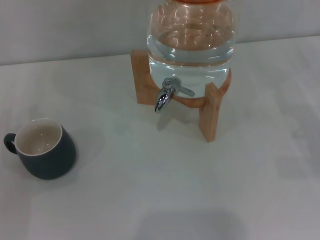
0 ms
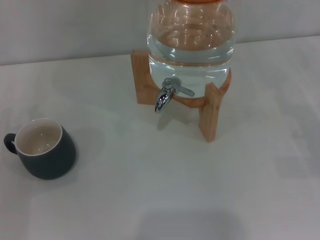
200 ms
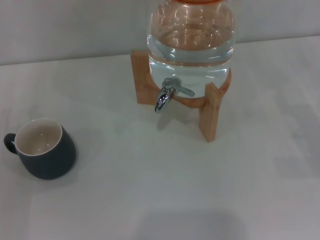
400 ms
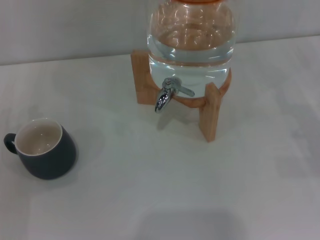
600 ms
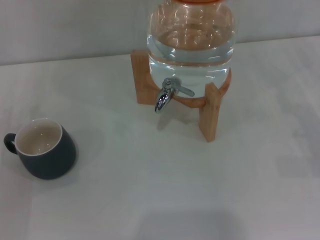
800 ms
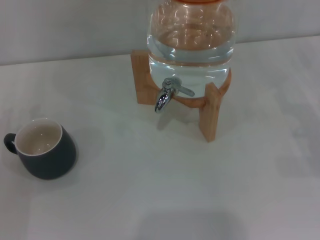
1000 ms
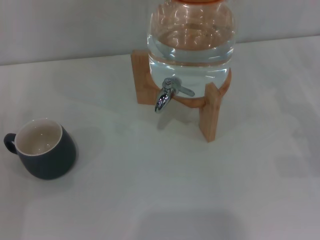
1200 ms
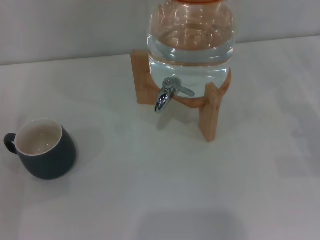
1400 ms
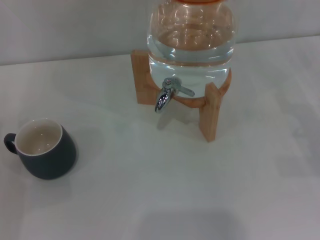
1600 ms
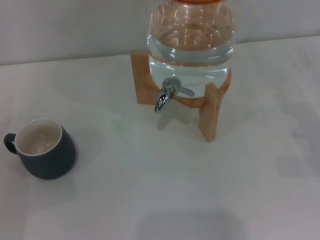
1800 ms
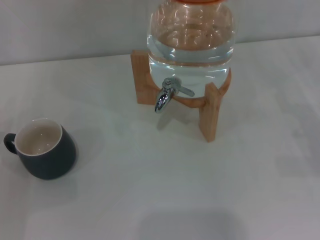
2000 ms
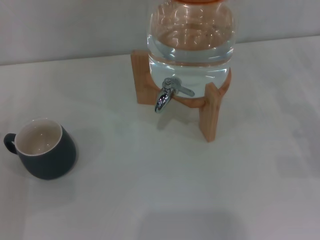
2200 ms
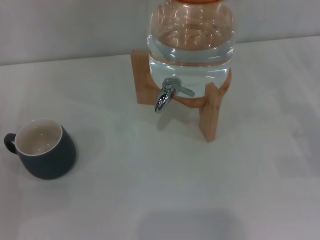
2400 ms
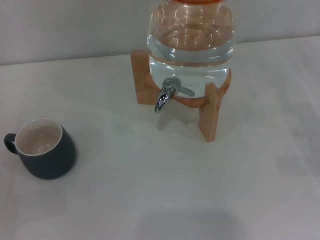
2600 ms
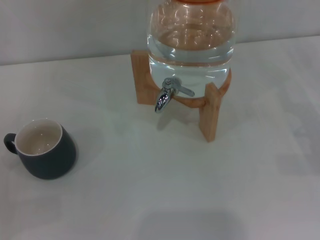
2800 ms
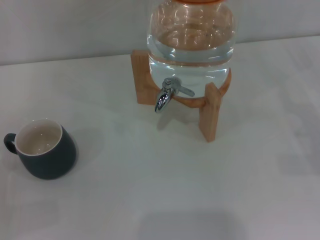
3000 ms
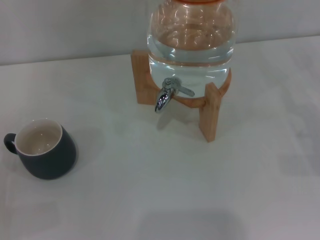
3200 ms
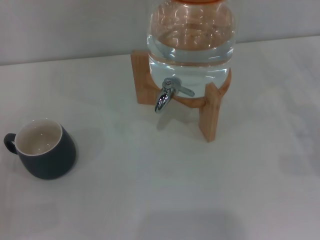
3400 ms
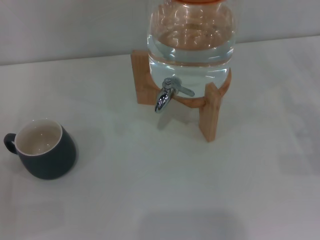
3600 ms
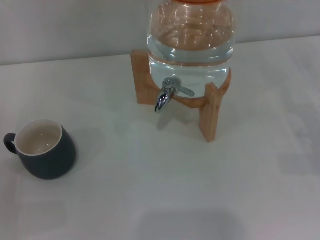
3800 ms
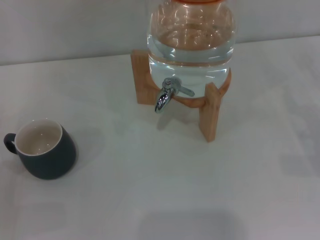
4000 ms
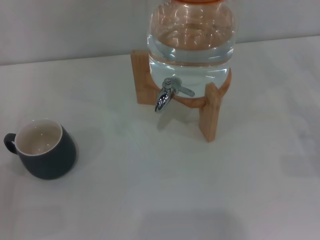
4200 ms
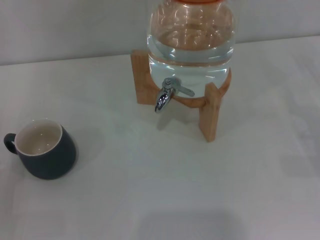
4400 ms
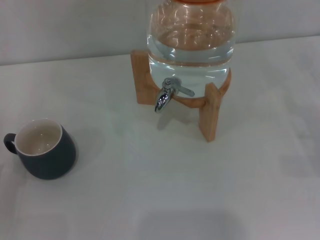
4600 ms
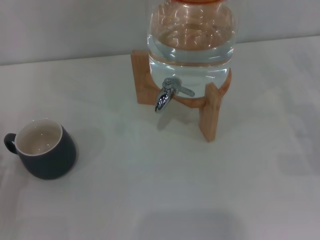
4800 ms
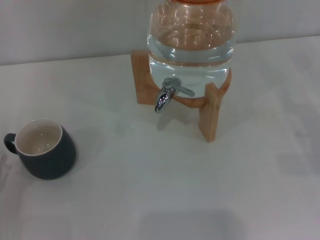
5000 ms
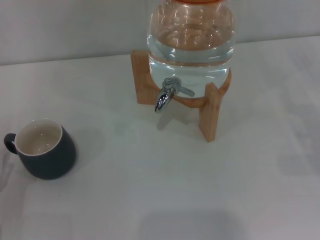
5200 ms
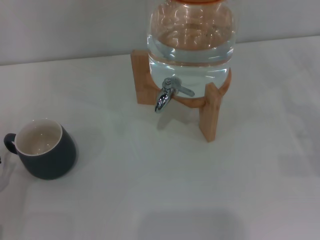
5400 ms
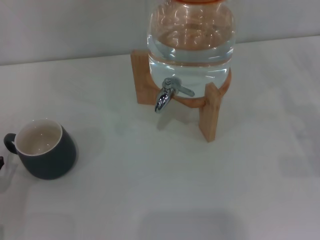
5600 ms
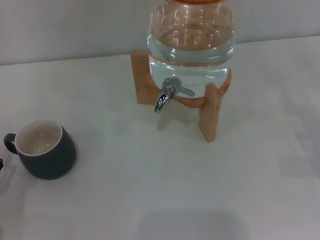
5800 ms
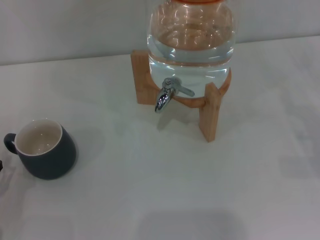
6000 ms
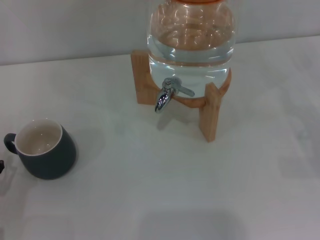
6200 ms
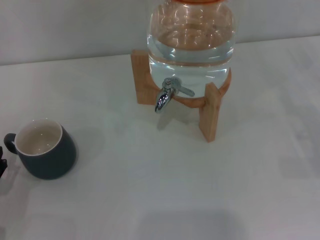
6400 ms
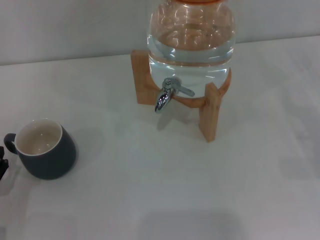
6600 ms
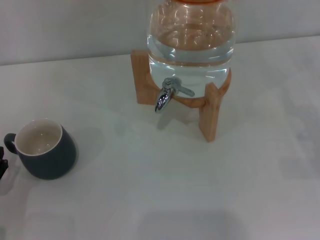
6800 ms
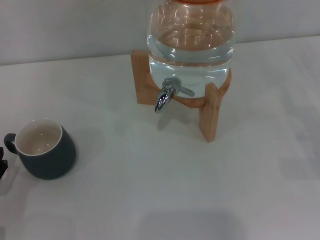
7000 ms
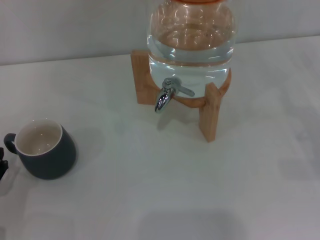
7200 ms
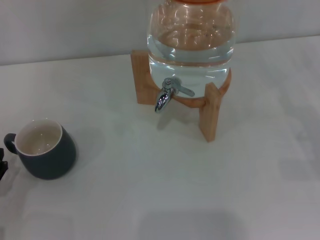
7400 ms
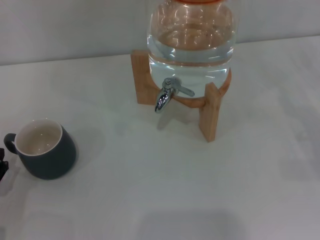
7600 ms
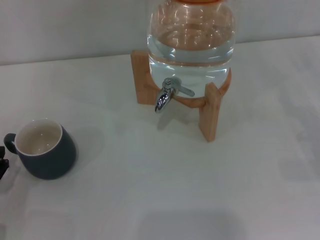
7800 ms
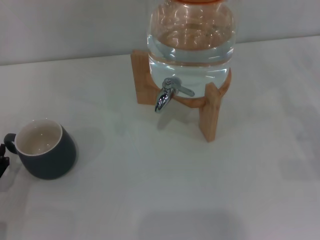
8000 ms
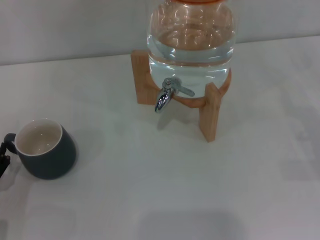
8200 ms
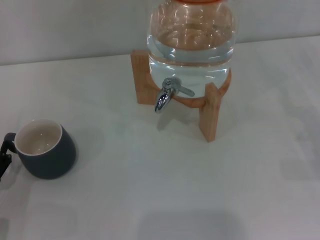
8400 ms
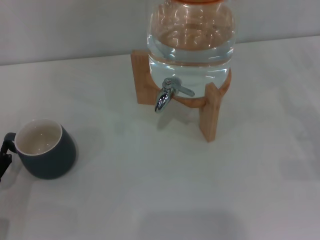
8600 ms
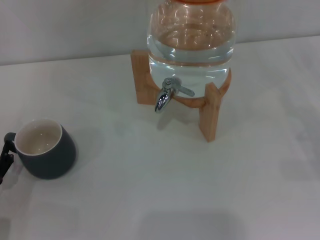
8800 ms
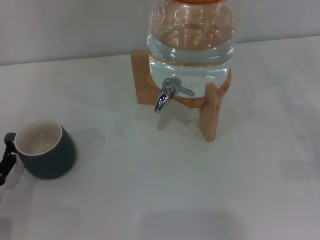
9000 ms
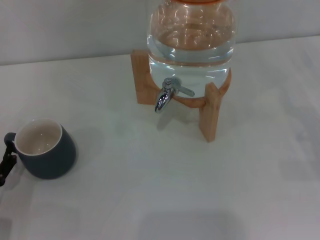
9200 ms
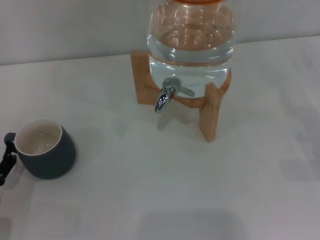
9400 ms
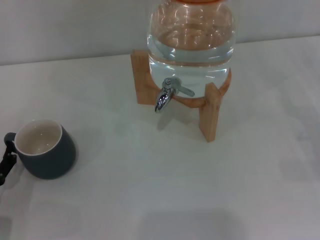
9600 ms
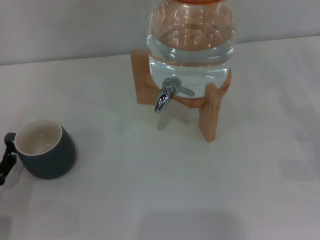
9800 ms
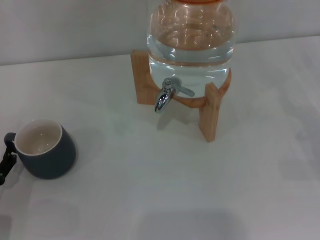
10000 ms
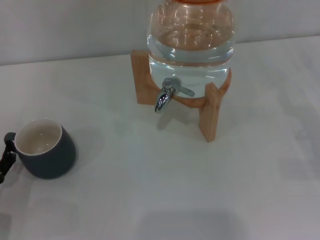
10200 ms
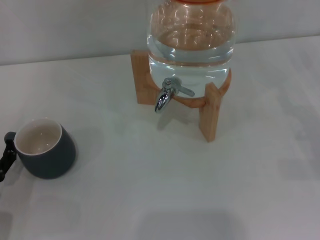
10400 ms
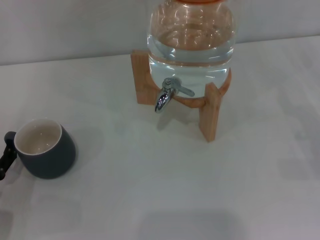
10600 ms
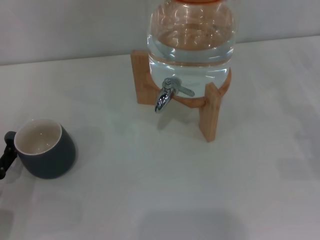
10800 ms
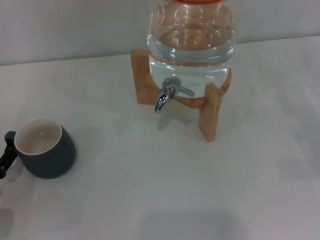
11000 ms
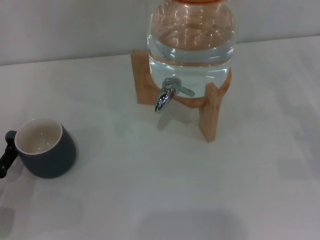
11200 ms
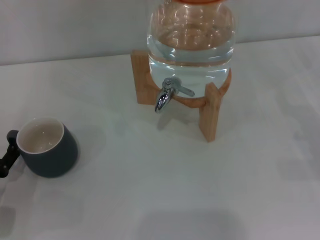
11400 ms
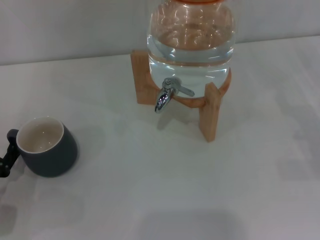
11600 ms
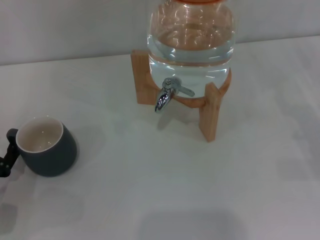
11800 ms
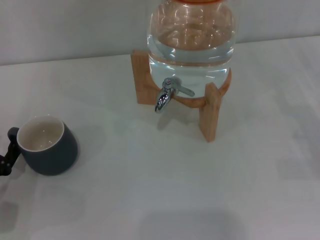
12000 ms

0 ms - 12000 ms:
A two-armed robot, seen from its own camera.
Task of the whole recording: the left gripper pick up the black cup and place it horizontally under the faucet, the right gripper turn on the faucet to fill the cup, and then turn off the faucet.
6000 ms - 7600 ms: The two grippers keep their place.
7600 ms - 9000 ms: The two grippers keep their place.
9000 ms - 10400 ms: Both grippers stay about where they are.
10400 ms - 12000 ms: The grippers make only small movements.

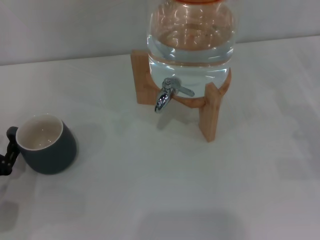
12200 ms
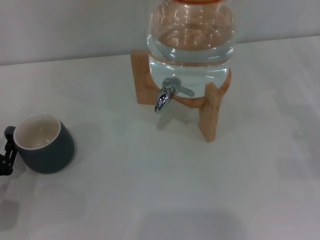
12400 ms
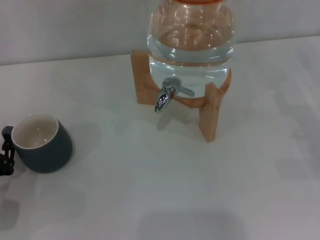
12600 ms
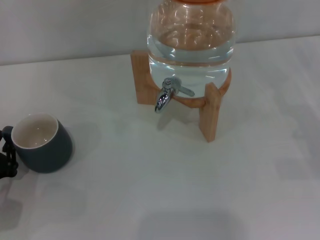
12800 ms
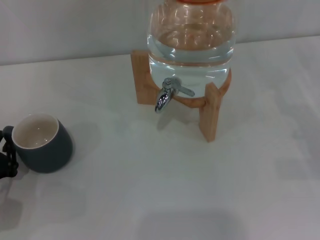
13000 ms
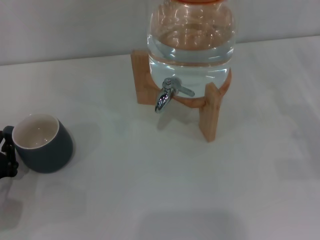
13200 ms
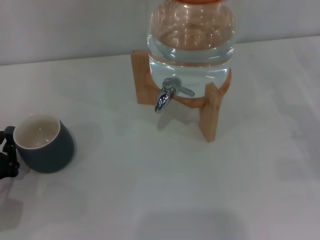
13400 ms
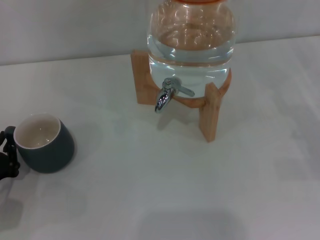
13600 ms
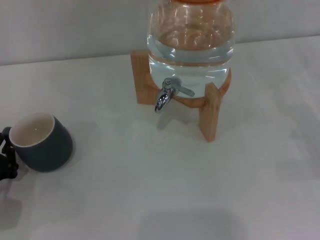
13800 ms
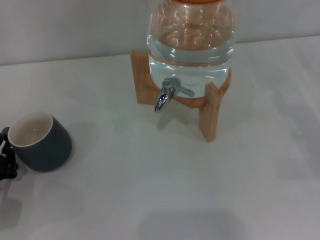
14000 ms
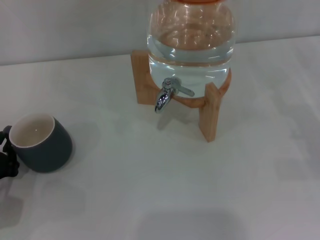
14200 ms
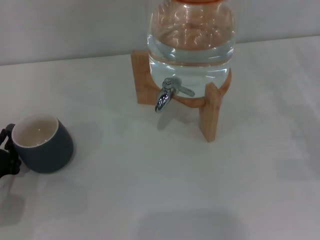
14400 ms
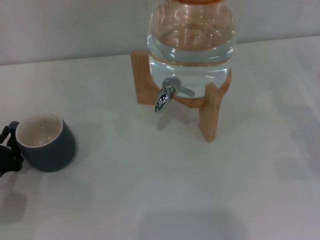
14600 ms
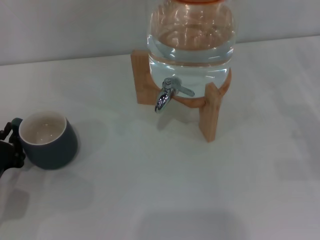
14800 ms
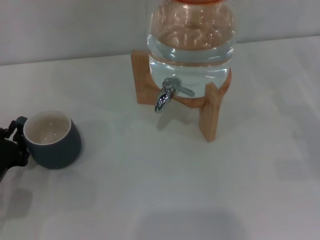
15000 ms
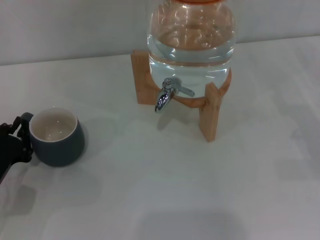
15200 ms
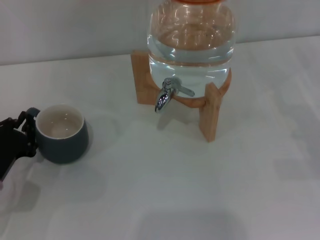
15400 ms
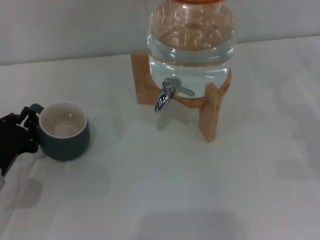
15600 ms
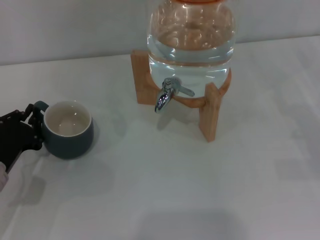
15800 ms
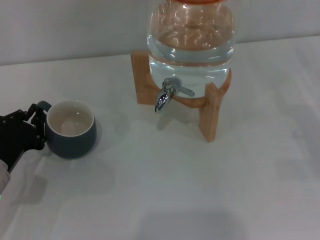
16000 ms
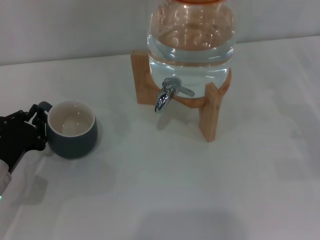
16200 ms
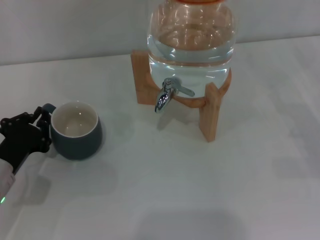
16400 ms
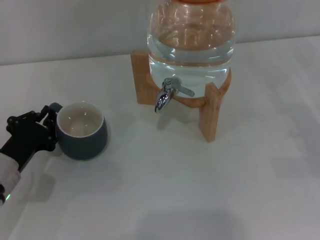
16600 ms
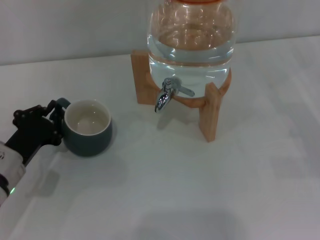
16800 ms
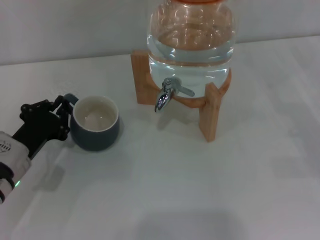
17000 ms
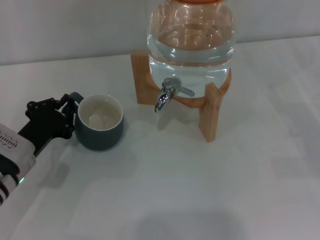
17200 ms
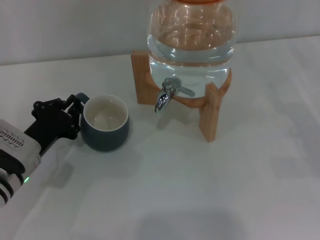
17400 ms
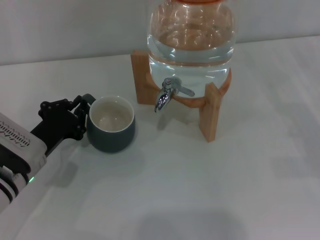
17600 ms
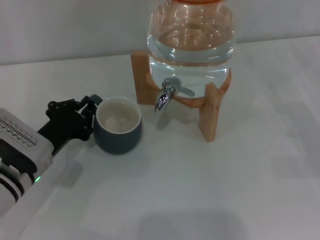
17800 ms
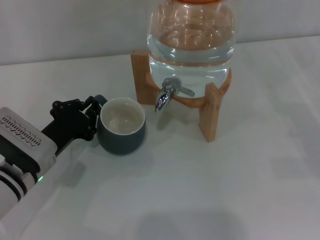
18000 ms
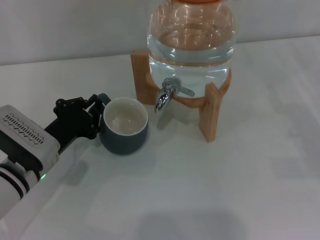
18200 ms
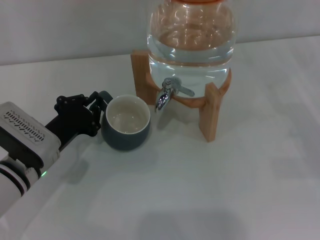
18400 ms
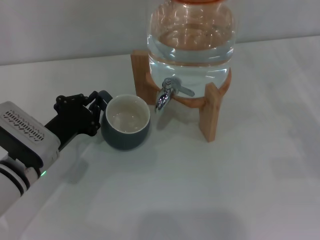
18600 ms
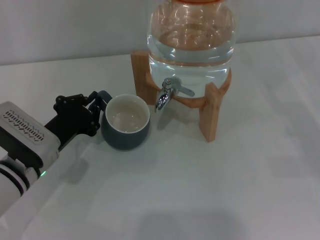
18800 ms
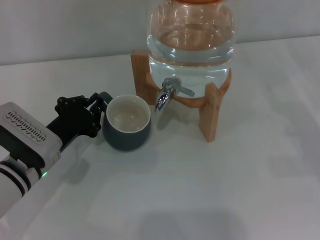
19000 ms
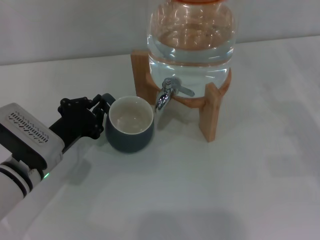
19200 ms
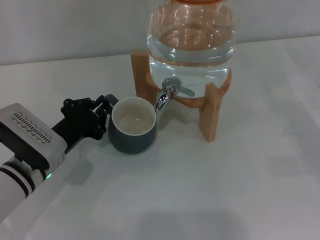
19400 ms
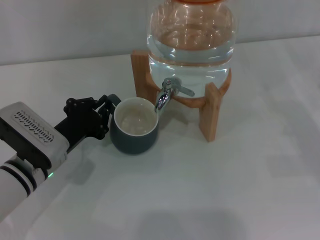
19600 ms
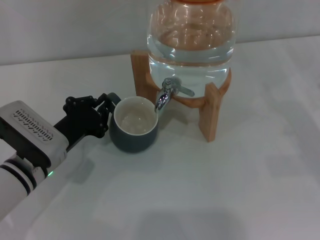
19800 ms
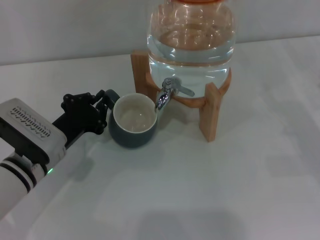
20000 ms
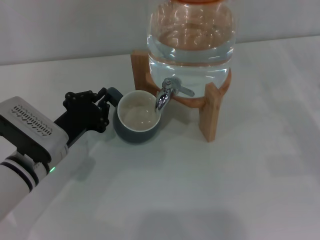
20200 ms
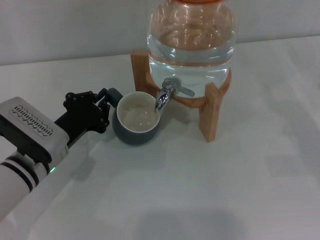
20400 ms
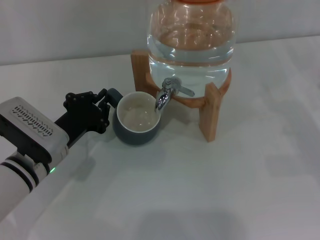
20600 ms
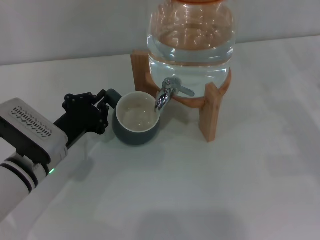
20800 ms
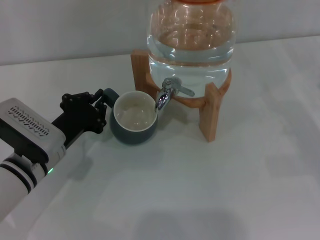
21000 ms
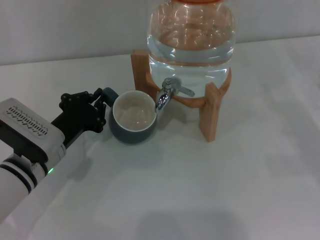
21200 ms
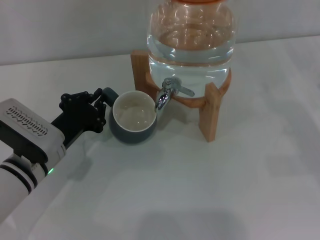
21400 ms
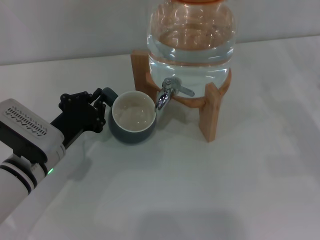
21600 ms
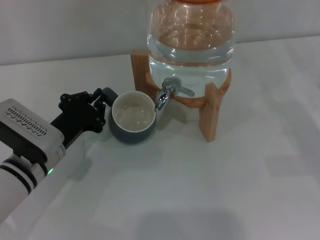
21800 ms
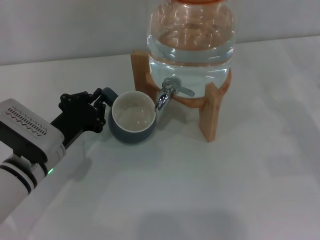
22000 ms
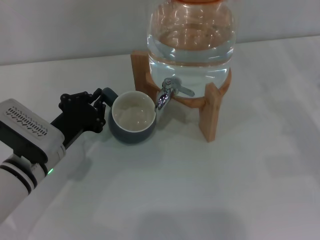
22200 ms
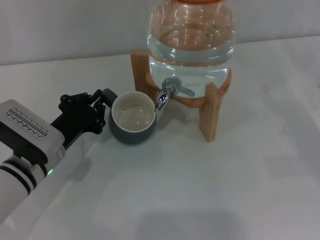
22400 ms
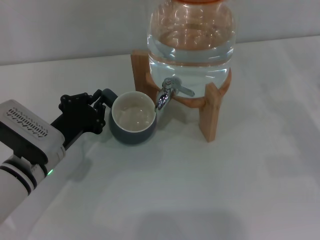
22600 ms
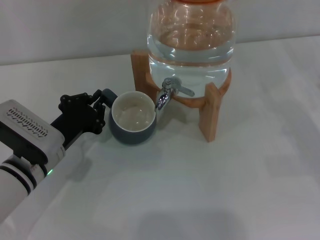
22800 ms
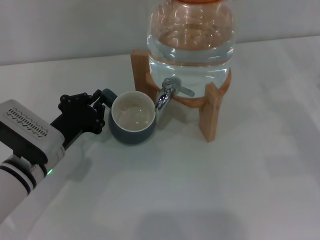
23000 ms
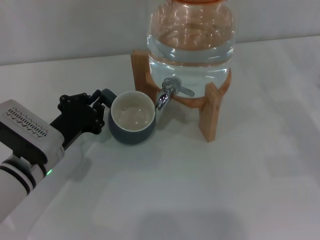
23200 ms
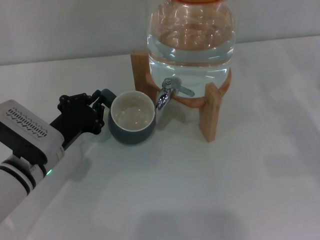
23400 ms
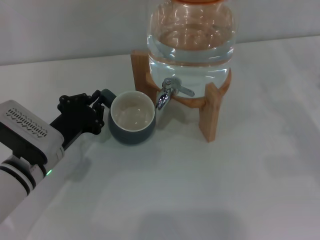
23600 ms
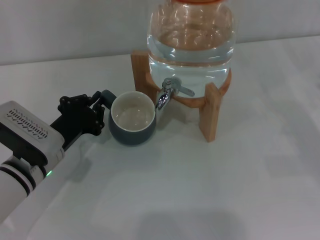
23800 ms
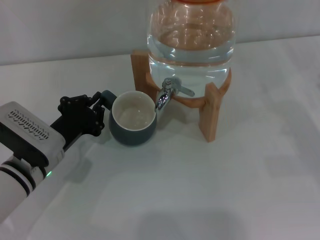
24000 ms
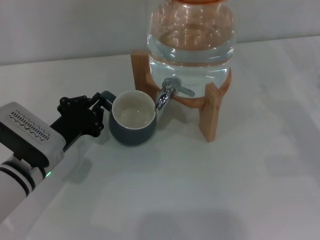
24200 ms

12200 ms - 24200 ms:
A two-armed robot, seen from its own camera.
Task of the whole recording: the left gripper pick up the black cup and place it horizontally under the faucet, the right gripper turn on the faucet to fill the cup, and then turn off the faucet.
12200 ms - 13800 ms: The left gripper closes up.
13800 ms - 15200 ms: The grippers move only a little.
15200 ms - 16600 ms: The grippers stay close to where they were, moving slightly.
16600 ms - 18200 ms: The left gripper is displaced to the right by roughly 5 cm.
18200 ms - 19800 ms: Both grippers stay put.
19800 ms - 21200 ms: The two grippers keep their place.
21200 ms - 24200 ms: Both grippers stay about where they are.
